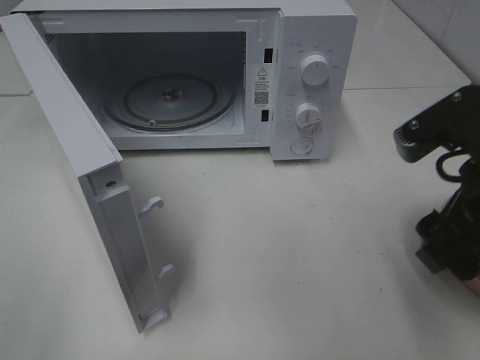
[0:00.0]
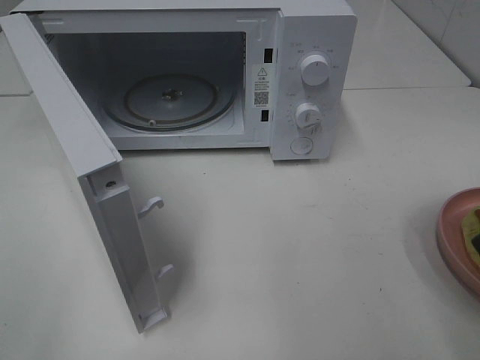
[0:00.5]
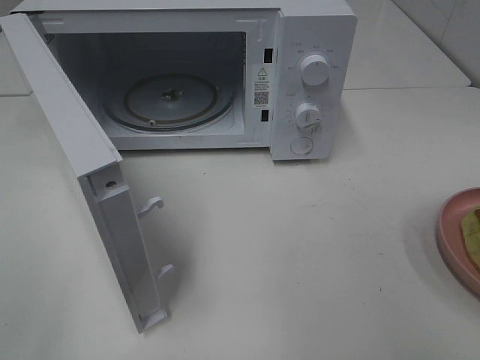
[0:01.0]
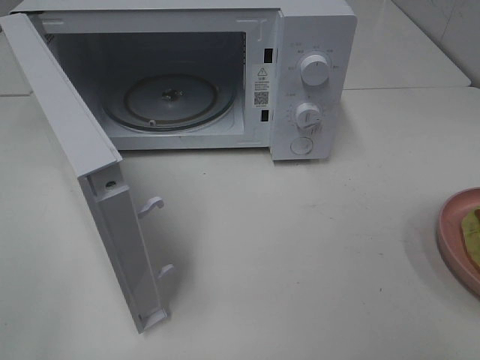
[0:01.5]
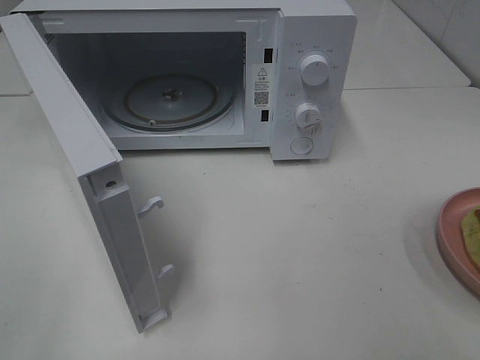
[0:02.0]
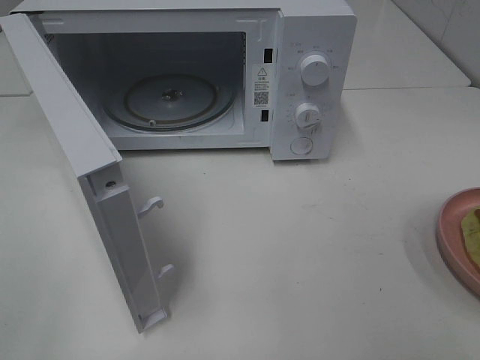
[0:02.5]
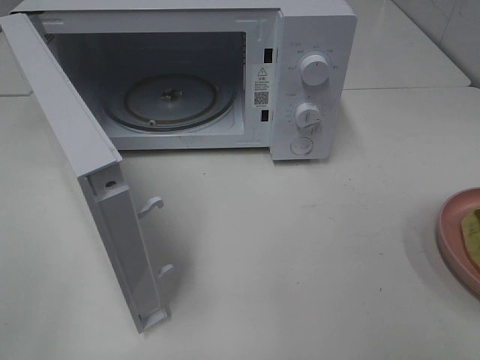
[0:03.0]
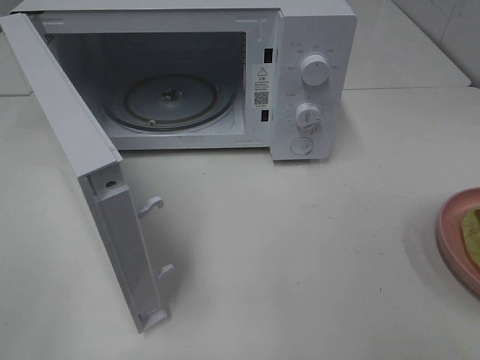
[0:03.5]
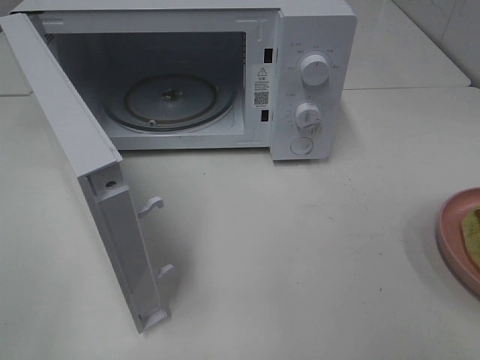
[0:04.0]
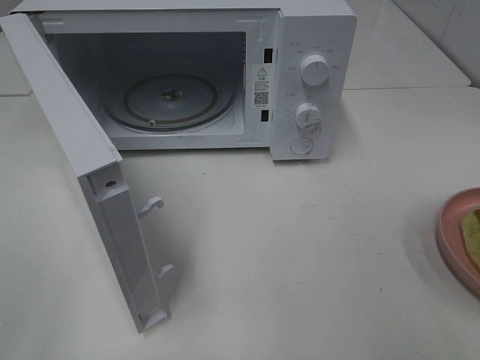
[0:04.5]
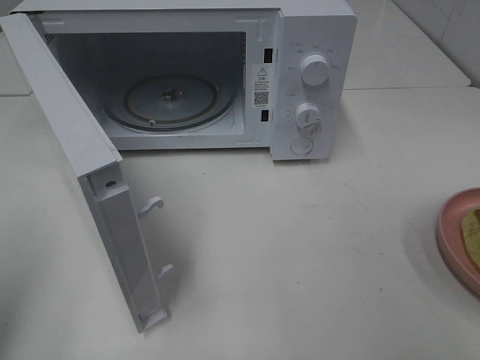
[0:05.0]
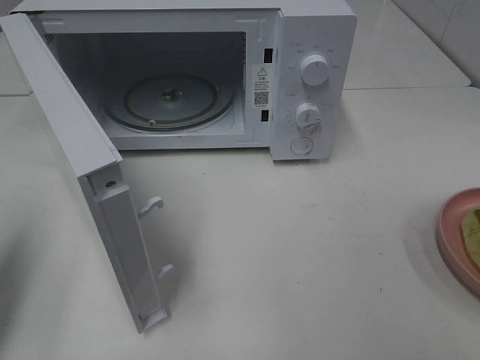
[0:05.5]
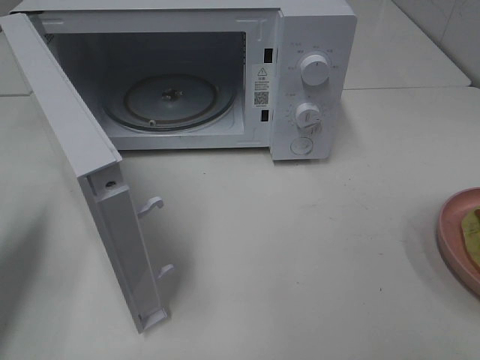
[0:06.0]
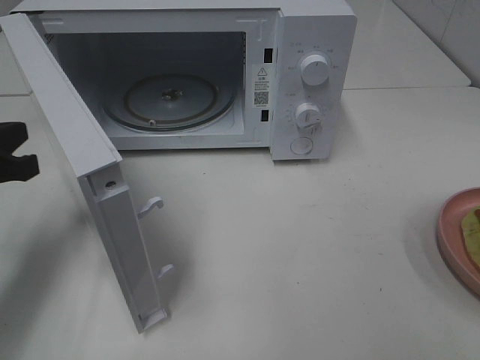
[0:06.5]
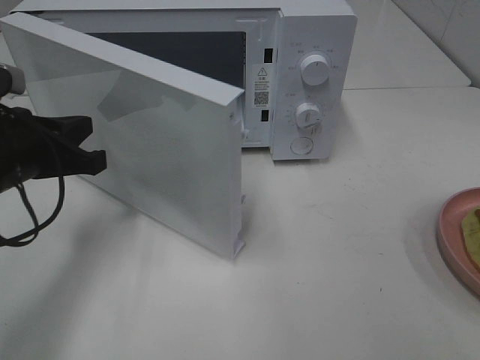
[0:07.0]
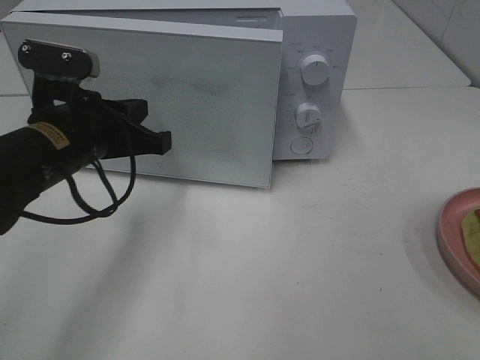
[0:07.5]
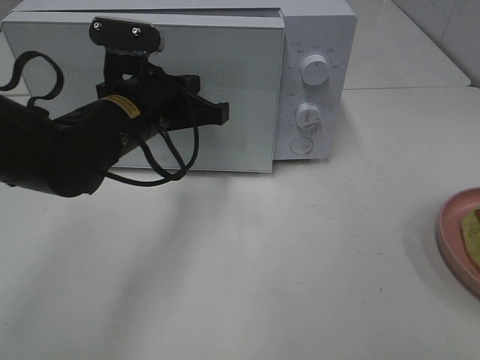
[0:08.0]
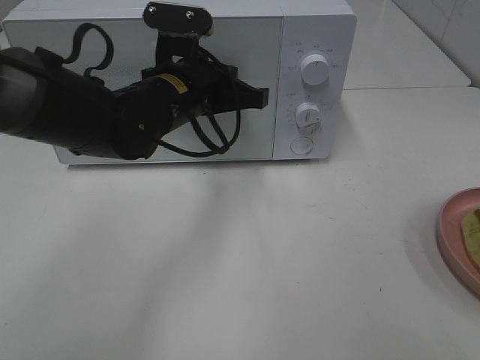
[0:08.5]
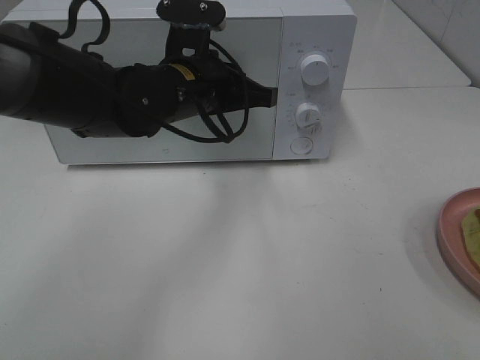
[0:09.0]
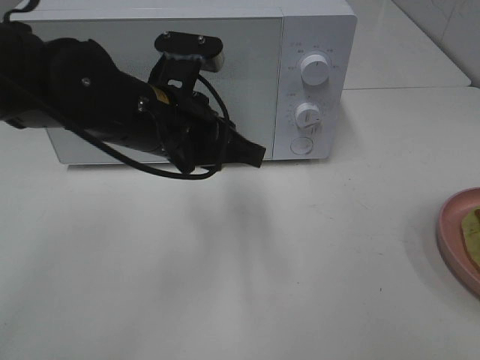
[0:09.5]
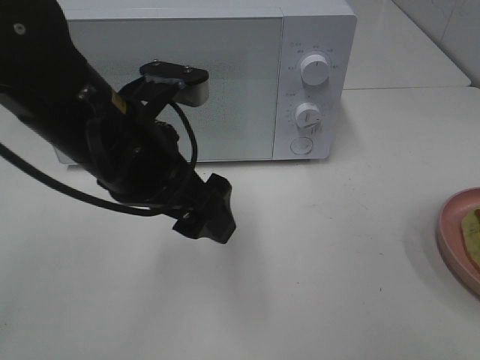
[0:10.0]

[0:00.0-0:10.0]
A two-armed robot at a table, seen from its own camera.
Task of the whole recording: Heat Sandwich.
Step, 0:00.5 to 0:09.5: Left hand: close the microwave door.
0:00.0 to 0:02.0: The right gripper travels backward and to the right by approximately 20 cm.
0:04.0 to 0:06.0: The left gripper is displaced forward by approximately 20 cm, and closes up.
0:06.0 to 0:08.0: The left gripper heads to the right and forward, covering about 25 cm.
0:08.0 to 0:10.0: The left gripper shifts roughly 10 cm backward and upward, and opens.

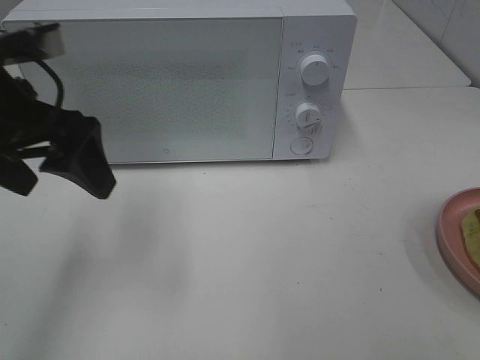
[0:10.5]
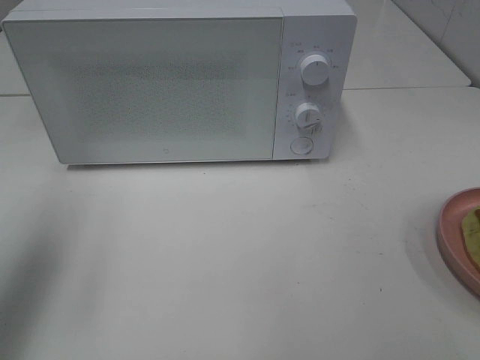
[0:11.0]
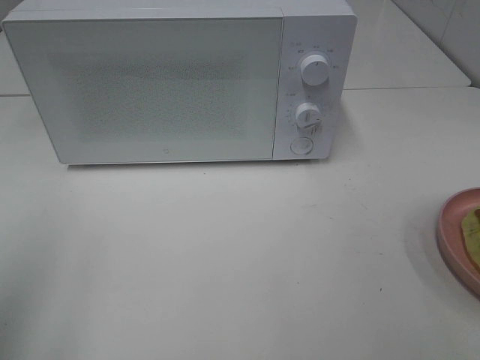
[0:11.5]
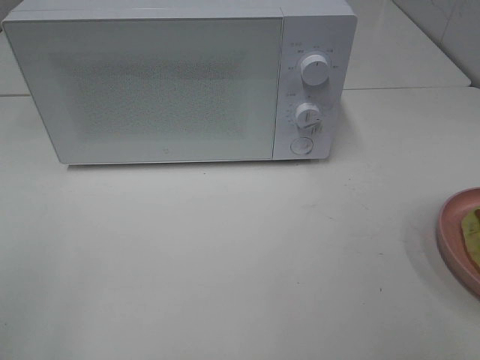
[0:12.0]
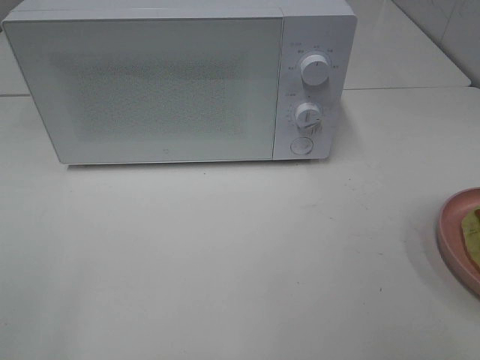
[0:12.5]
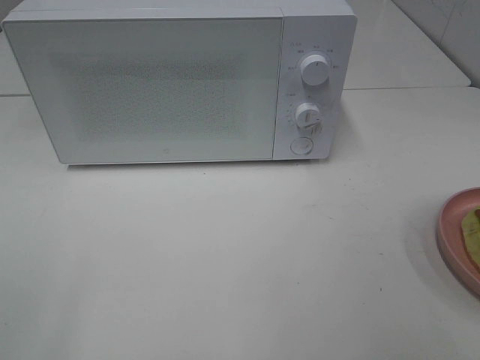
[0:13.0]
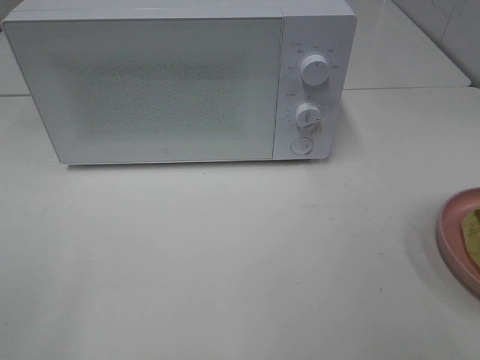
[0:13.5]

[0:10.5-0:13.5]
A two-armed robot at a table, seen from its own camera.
Task of the whole recording: Heat Sandwich.
0:10.5 to 0:12.0: The left gripper moves backward and to the left, roughly 25 cm.
